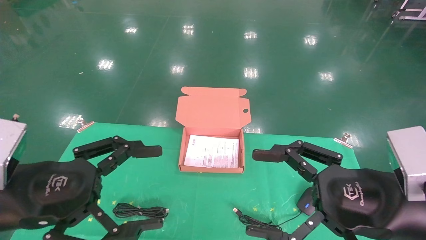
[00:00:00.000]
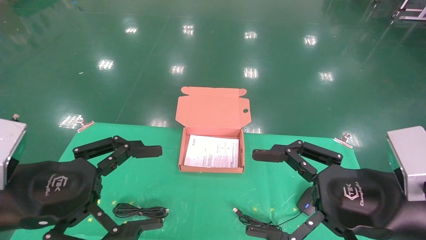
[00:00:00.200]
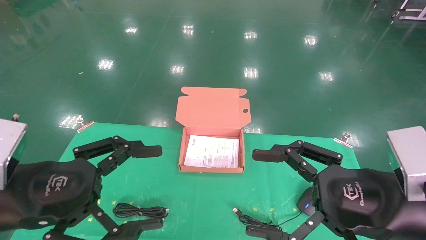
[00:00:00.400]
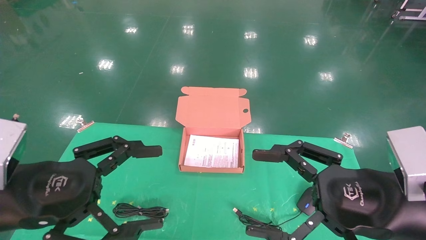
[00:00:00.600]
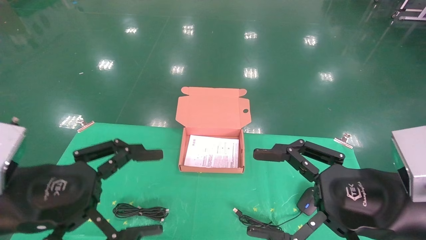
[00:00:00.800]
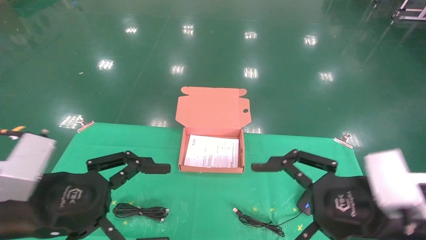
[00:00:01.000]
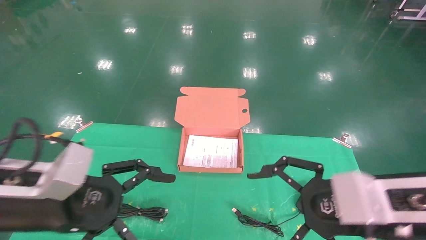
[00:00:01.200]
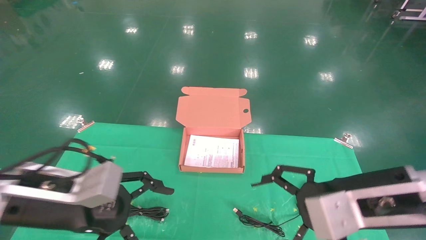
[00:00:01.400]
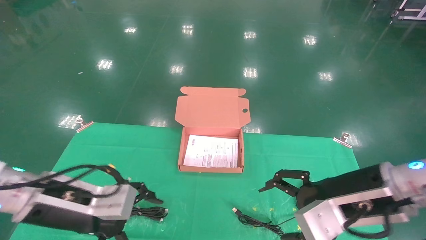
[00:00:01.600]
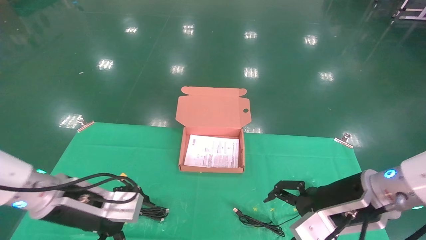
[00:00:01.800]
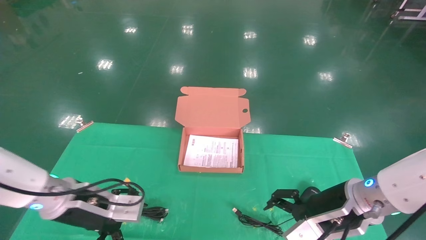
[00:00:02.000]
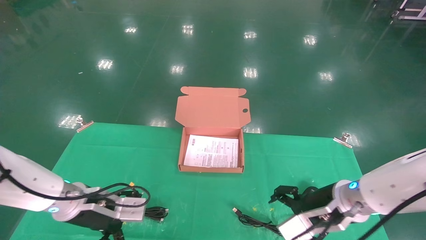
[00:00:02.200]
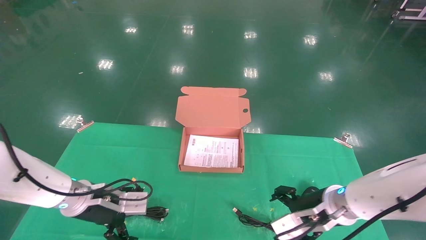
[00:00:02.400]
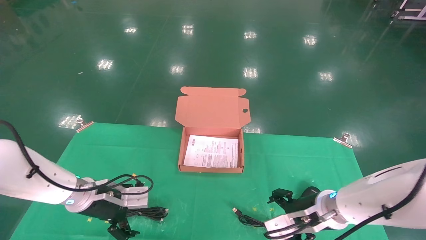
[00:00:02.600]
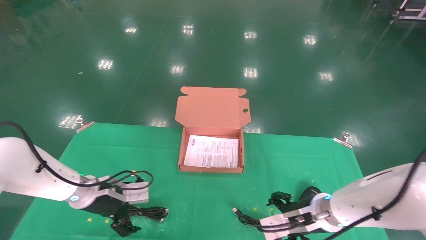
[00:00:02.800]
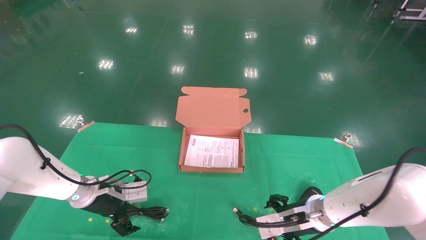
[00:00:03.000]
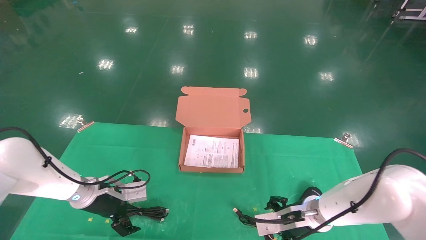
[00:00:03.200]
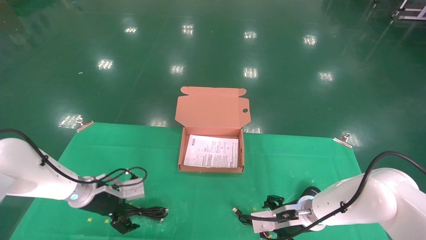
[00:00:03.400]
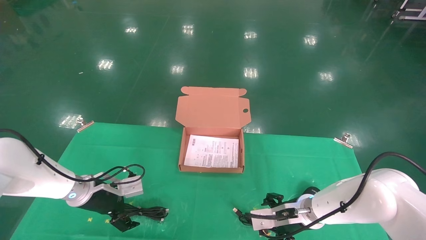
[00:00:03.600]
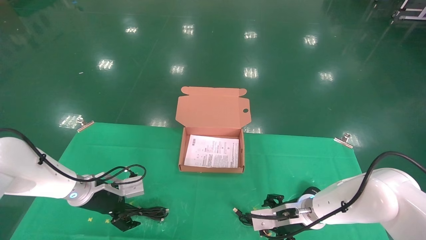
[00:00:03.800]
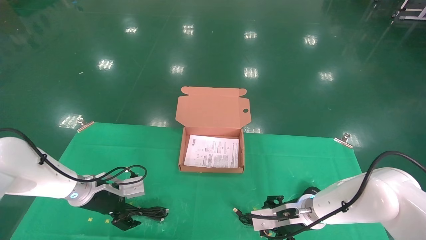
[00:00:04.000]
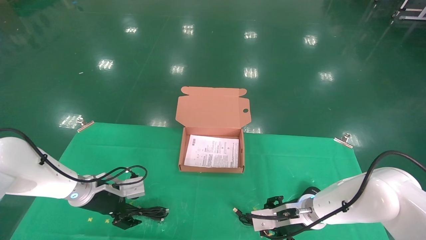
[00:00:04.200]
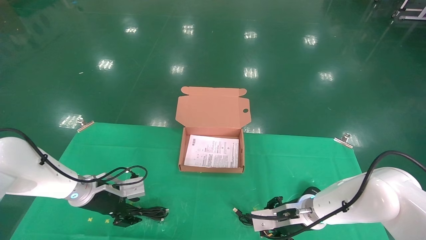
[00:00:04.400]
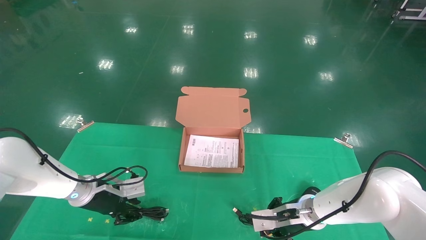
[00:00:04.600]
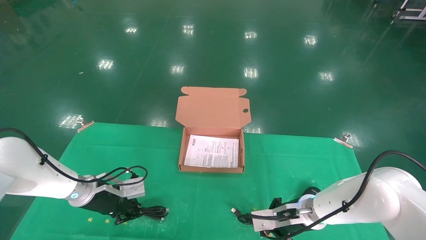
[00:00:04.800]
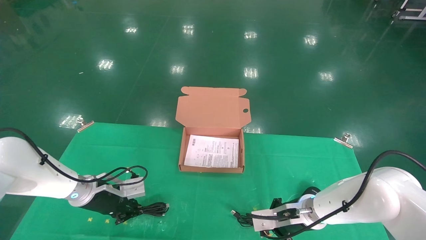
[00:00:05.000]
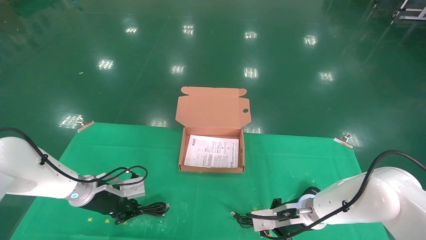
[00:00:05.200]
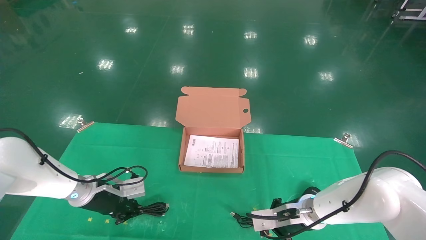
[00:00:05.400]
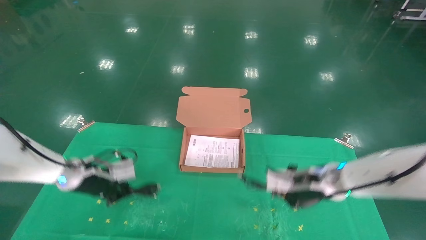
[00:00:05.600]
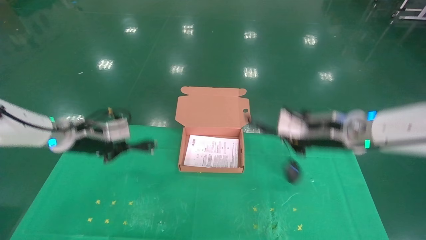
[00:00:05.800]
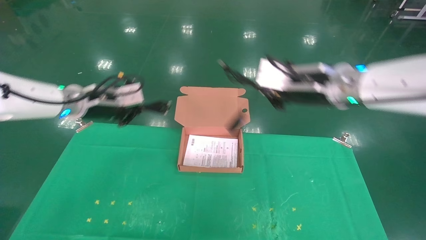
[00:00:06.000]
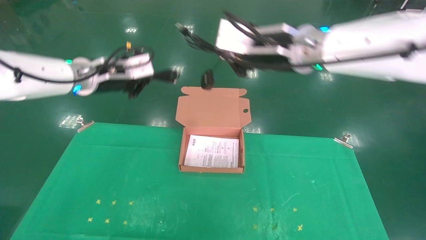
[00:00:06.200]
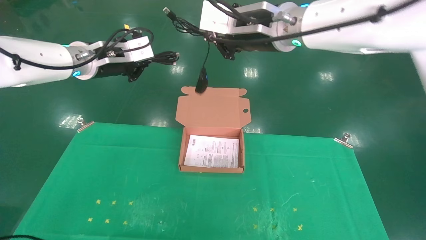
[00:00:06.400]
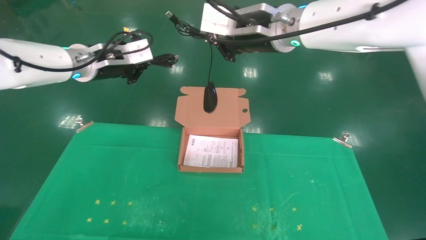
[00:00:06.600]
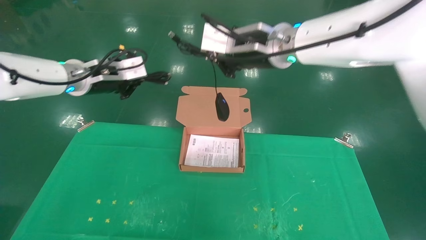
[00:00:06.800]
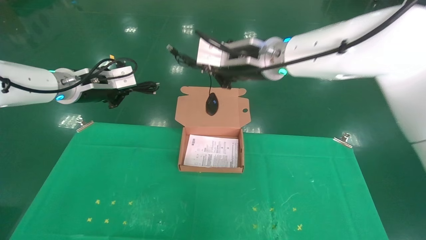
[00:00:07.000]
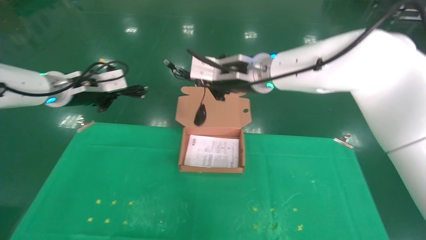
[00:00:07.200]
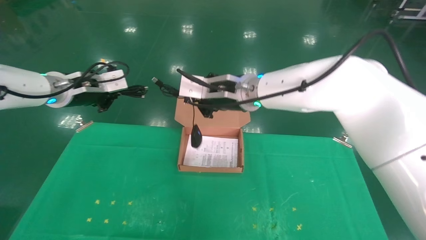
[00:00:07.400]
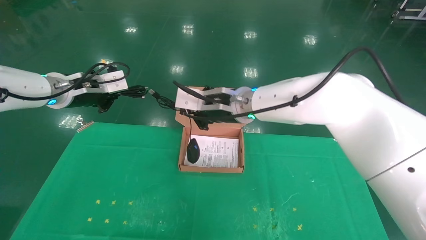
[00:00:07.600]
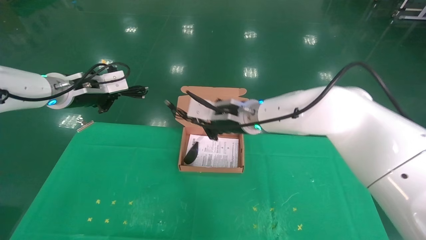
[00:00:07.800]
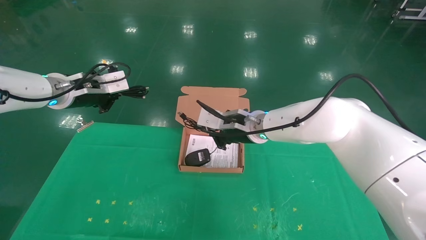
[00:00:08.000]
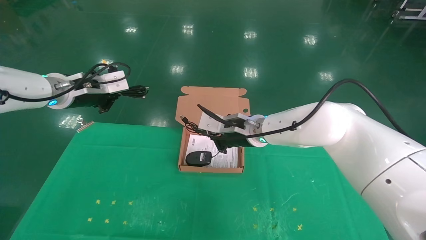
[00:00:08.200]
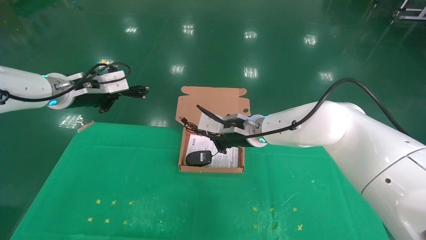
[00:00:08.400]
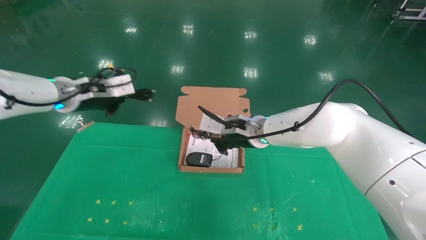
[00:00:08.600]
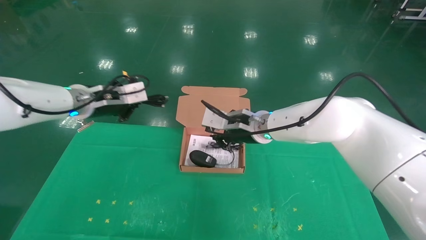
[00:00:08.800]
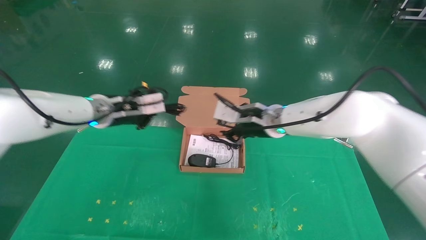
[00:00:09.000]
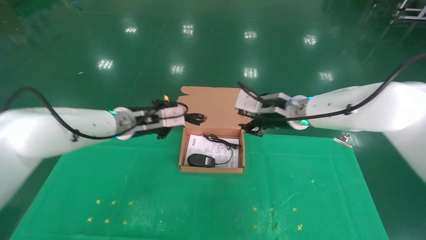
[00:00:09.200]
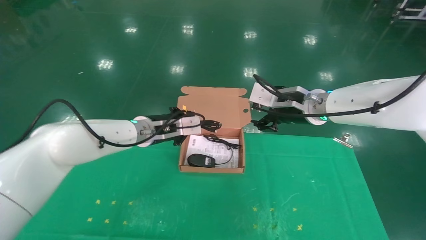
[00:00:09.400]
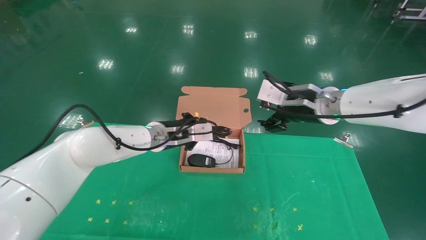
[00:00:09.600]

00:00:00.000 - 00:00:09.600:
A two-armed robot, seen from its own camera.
Task of the whole recording: grasp data cable left put into box grasp mouse right put into box.
Step, 00:00:01.200 - 00:00:05.400: Grab and pick up both the mouse and power cord from the accessory packaging area at the same time.
00:00:00.000 - 00:00:01.600: The left gripper is displaced forward and downward by roughly 10 cm. Meanwhile the right gripper travels forward by some 5 cm.
00:00:01.600 - 00:00:03.200: The right gripper goes some 20 cm downward and forward, while the left gripper goes roughly 20 cm forward and downward.
00:00:03.200 - 00:00:04.800: The left gripper closes. The right gripper closes.
00:00:04.800 - 00:00:06.400: Both grippers travel together upward, some 30 cm.
00:00:06.400 - 00:00:08.000: The left gripper moves to the left, about 5 cm; the right gripper moves downward and forward, some 20 cm.
00:00:08.000 - 00:00:09.600: The left gripper travels to the right and downward by some 20 cm, while the right gripper heads to the right and upward, covering roughly 15 cm, and opens its fingers.

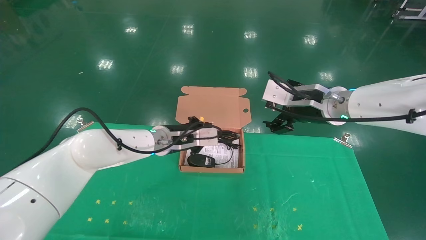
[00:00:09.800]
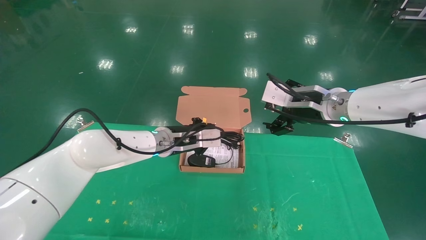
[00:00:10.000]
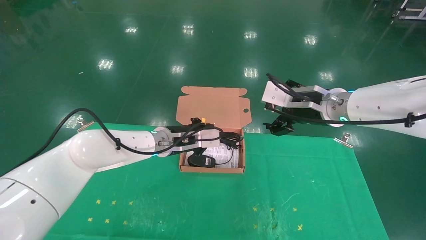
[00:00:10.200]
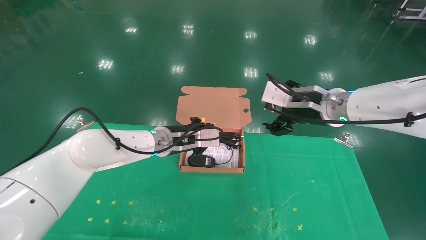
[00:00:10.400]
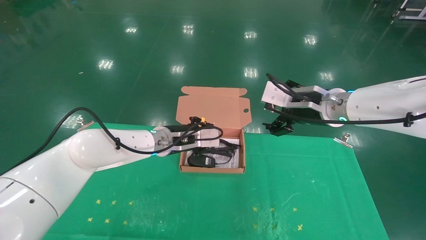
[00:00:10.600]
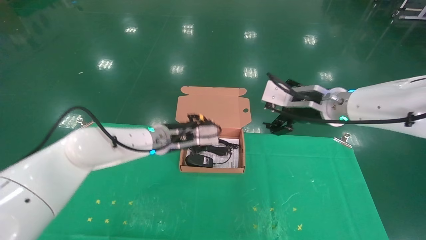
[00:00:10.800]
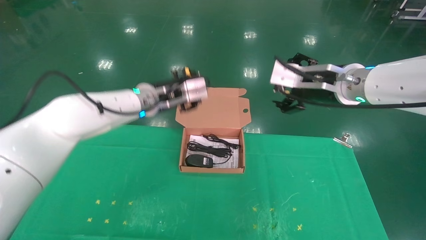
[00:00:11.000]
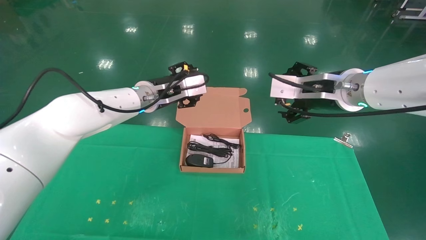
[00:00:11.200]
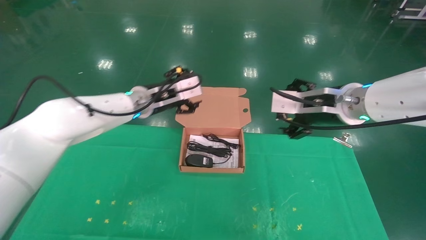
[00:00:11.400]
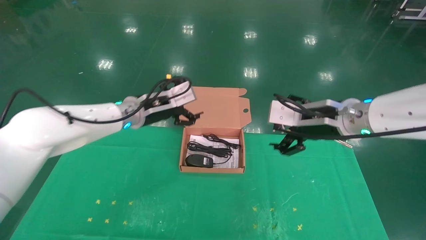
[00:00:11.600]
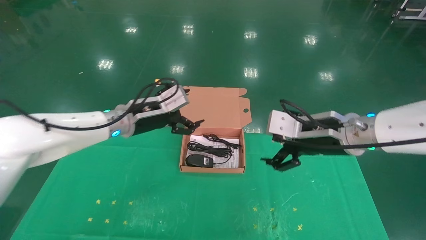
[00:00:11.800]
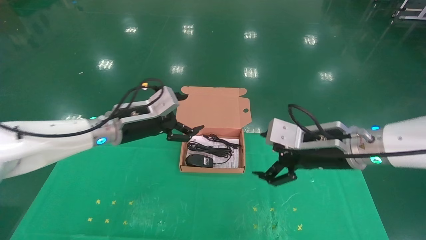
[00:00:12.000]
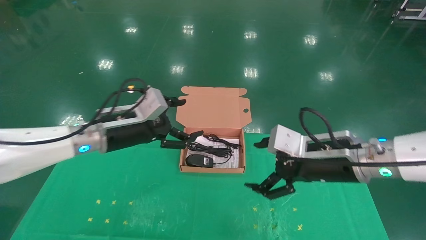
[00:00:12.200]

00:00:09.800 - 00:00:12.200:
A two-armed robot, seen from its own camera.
Task of the whole recording: grasp data cable left put into box grasp mouse right put into box.
00:00:09.800 - 00:00:11.000: The left gripper travels upward by some 10 cm, and opens up.
00:00:11.000 - 00:00:12.200: The right gripper is displaced downward and backward by roughly 10 cm. The left gripper goes approximately 10 cm backward and to the left, and opens its fingers.
